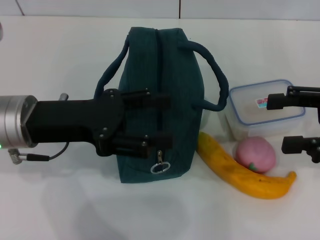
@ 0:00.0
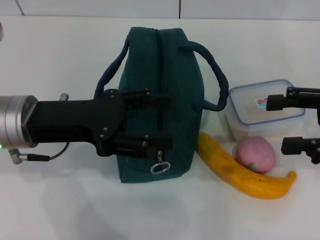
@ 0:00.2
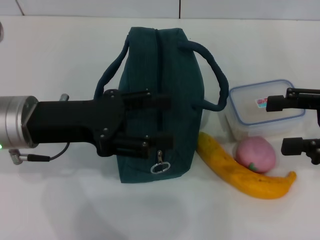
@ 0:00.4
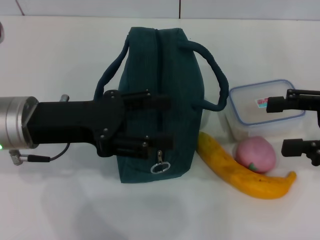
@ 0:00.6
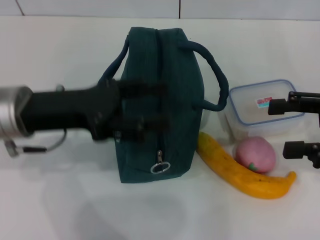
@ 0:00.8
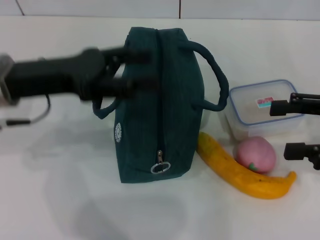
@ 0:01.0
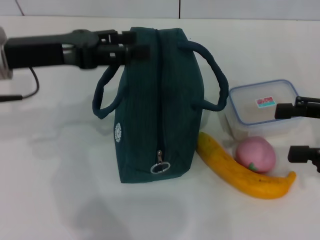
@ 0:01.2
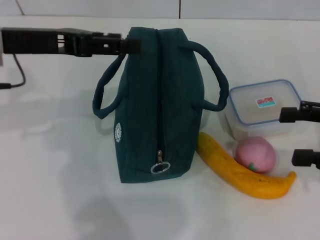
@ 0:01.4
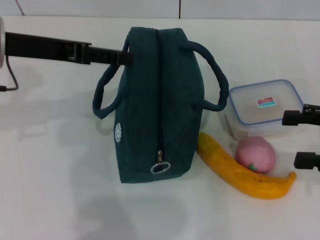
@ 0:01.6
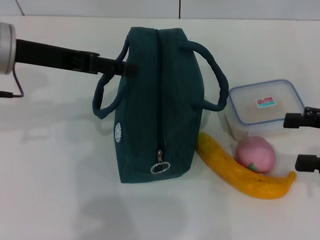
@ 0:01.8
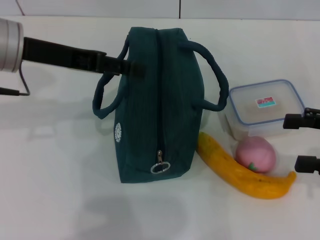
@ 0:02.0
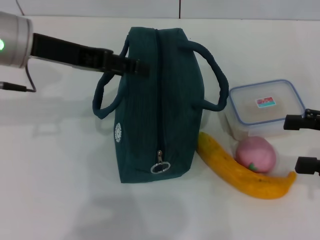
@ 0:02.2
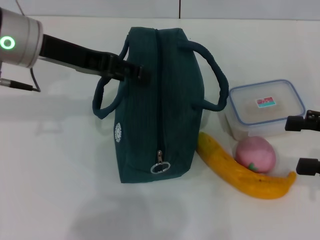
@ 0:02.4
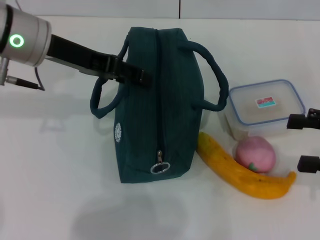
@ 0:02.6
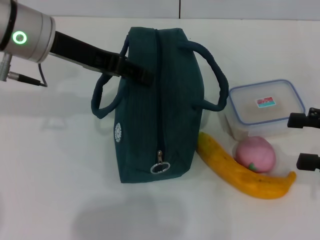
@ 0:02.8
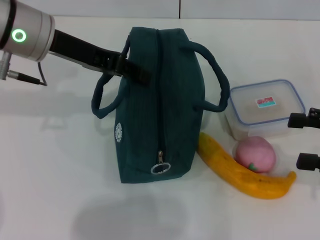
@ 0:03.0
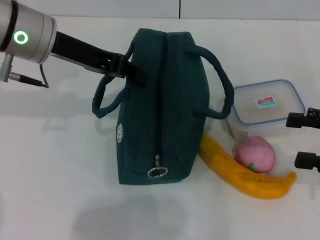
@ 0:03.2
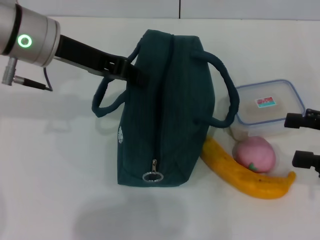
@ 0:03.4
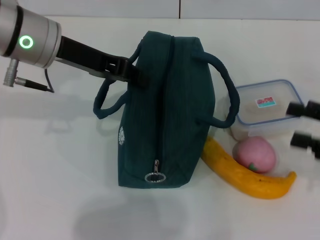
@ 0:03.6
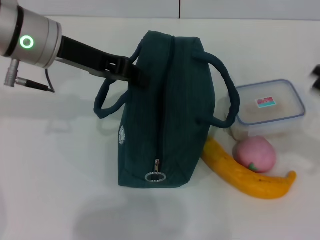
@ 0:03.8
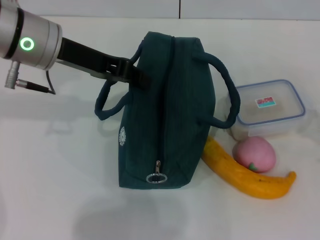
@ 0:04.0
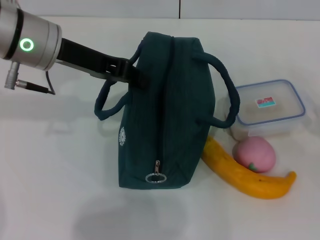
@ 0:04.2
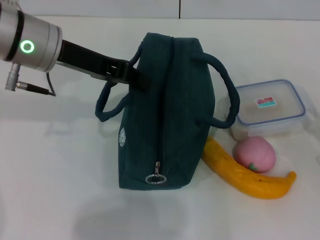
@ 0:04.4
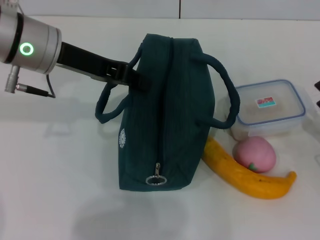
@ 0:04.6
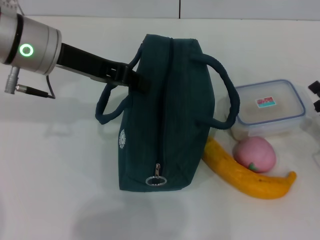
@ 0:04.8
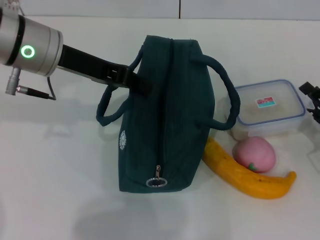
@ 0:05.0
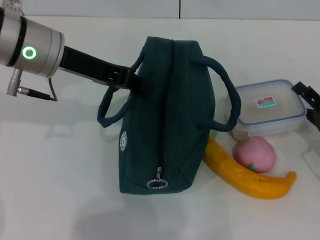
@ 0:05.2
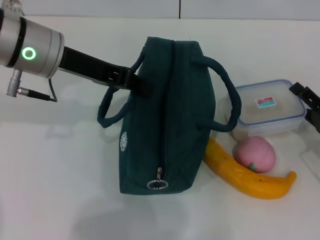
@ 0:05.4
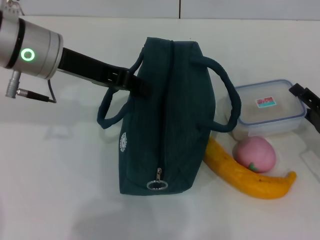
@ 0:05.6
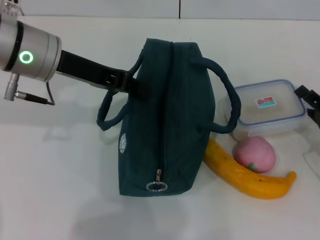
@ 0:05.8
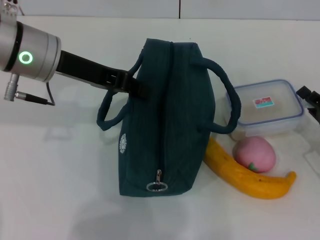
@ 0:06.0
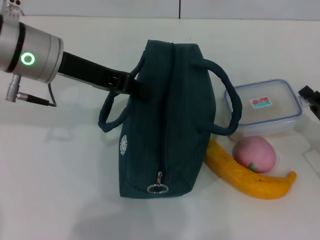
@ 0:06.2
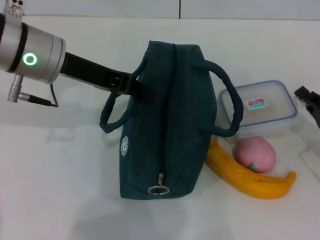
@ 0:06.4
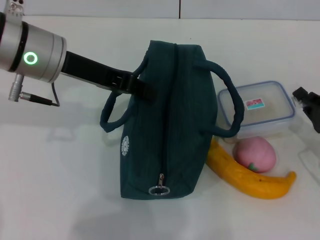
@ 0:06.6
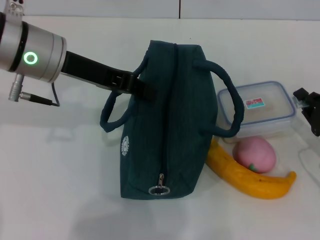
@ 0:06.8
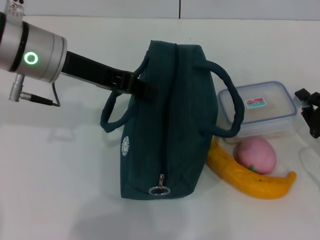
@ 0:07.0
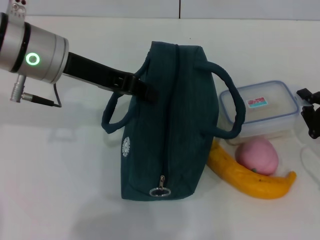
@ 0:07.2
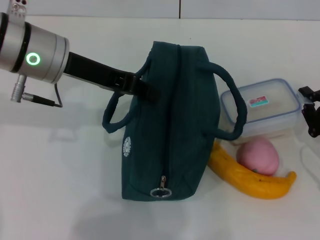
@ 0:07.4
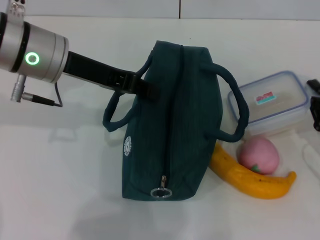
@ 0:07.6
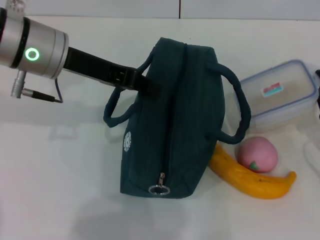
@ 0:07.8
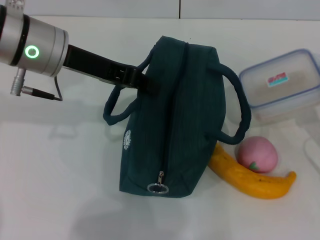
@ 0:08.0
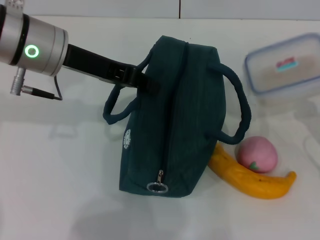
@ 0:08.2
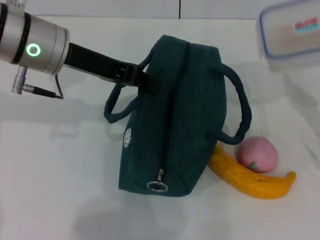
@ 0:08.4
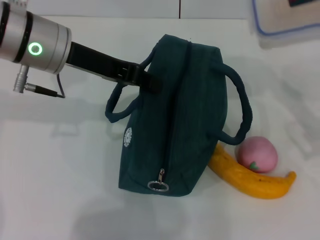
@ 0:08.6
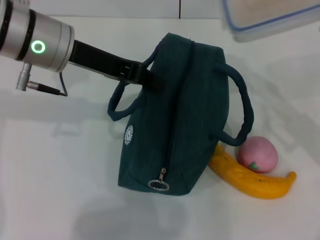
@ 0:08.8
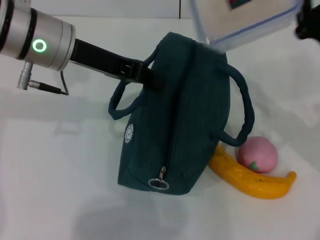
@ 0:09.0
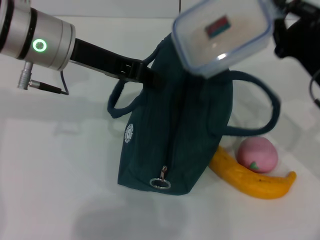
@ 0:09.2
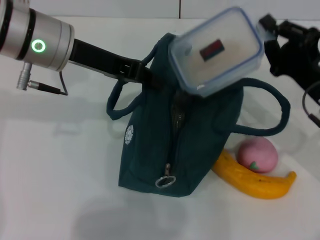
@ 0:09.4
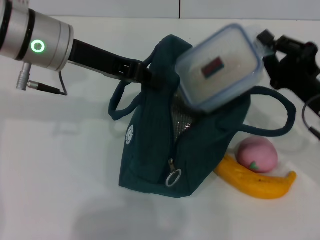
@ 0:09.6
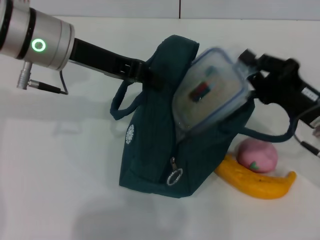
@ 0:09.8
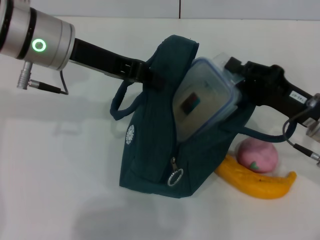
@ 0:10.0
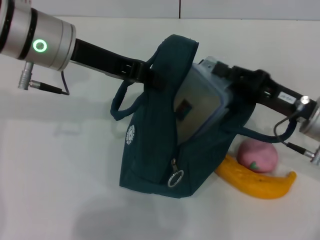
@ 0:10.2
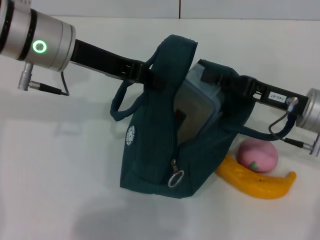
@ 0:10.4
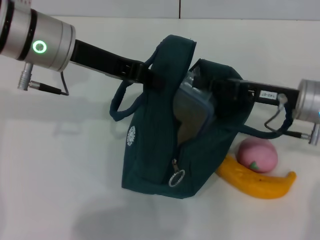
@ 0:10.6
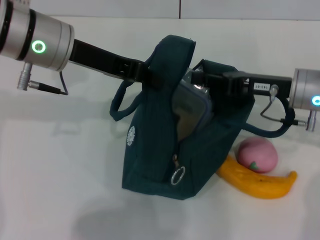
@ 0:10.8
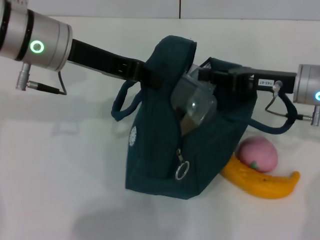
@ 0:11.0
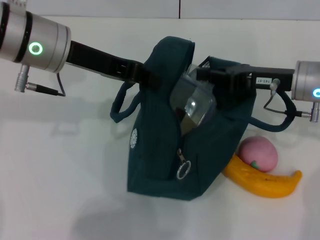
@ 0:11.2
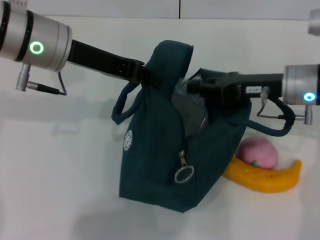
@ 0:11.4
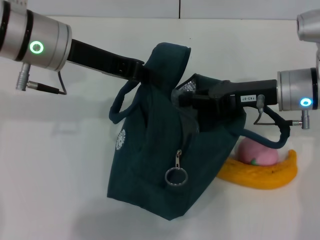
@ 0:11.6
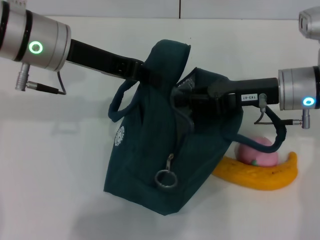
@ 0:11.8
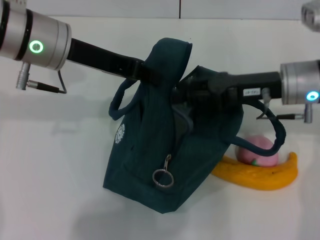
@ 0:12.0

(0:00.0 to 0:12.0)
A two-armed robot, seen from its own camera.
Step, 0:00.0 - 0:03.8: Hold the lunch bag with your left hand.
Step, 0:04.0 - 0:07.0: Pick up the lunch box with your right hand.
0:00.0 - 0:01.6: The left gripper heads upward and forward, covering some 10 cm.
0:01.6 - 0:03.0: The left gripper shifts by some 5 cm.
0:03.0 - 0:04.4: The left gripper closes. Meanwhile the right gripper heads downward, covering some 10 cm.
0:04.4 - 0:06.0: The grippers move only a little.
0:06.0 - 0:07.6: The right gripper closes up.
0:07.6 - 0:09.0: The right gripper goes roughly 10 cm upward, to the left and forward.
0:10.4 - 0:12.0: The right gripper changes place by roughly 5 cm.

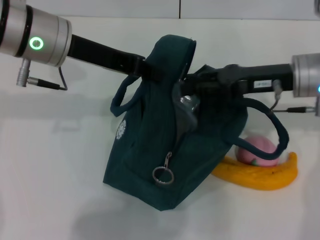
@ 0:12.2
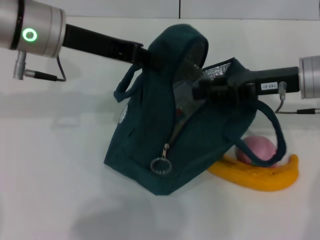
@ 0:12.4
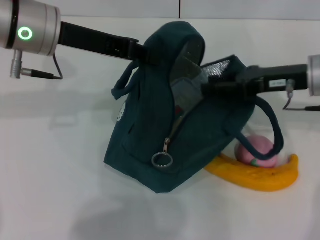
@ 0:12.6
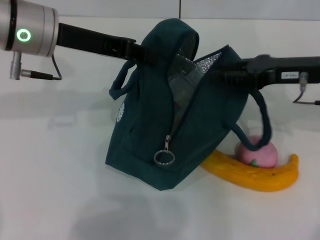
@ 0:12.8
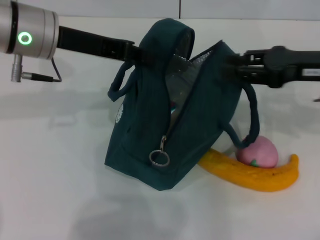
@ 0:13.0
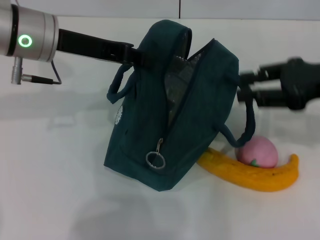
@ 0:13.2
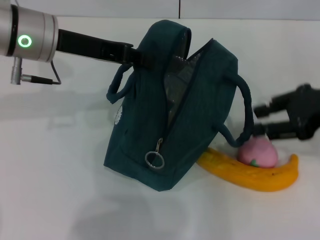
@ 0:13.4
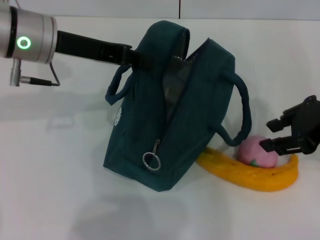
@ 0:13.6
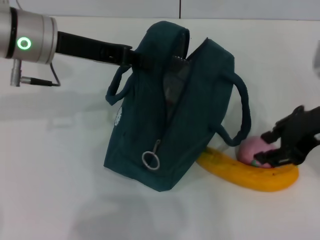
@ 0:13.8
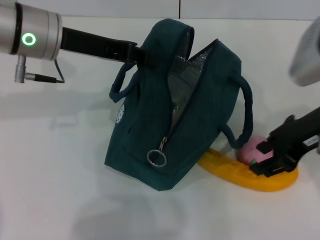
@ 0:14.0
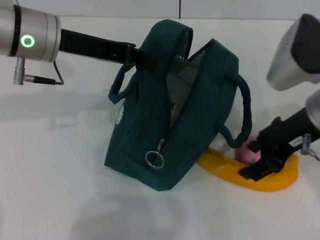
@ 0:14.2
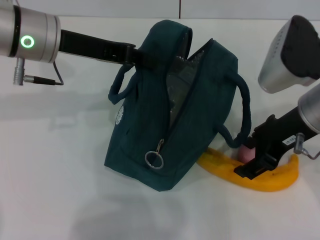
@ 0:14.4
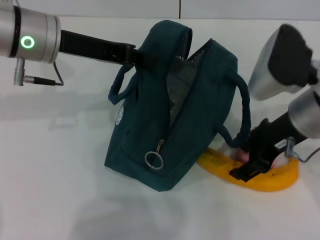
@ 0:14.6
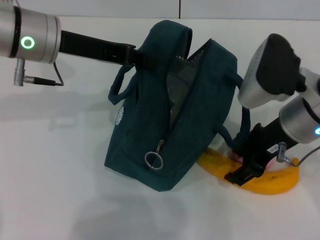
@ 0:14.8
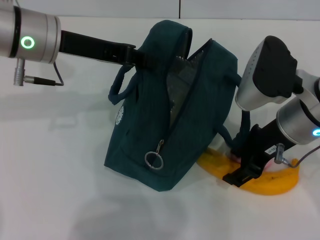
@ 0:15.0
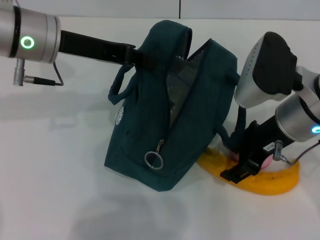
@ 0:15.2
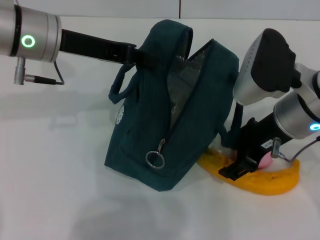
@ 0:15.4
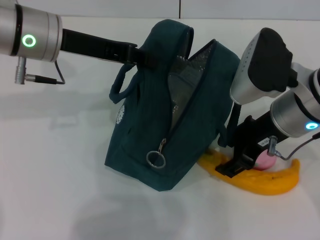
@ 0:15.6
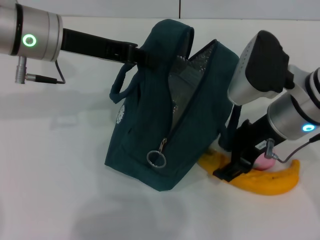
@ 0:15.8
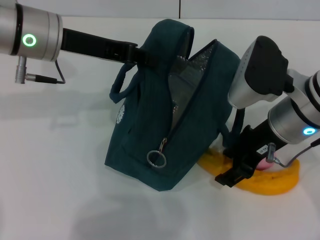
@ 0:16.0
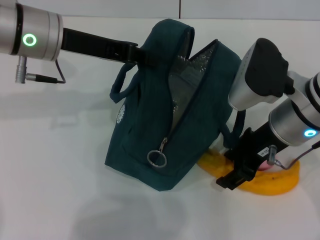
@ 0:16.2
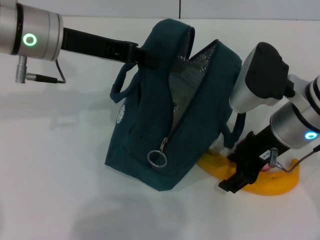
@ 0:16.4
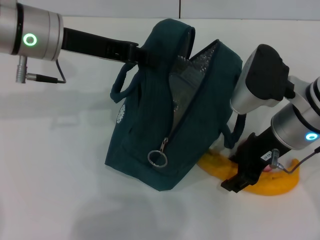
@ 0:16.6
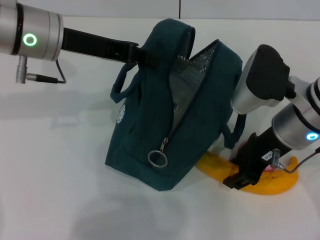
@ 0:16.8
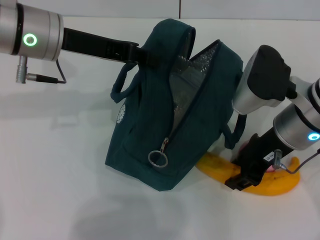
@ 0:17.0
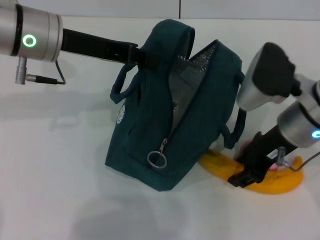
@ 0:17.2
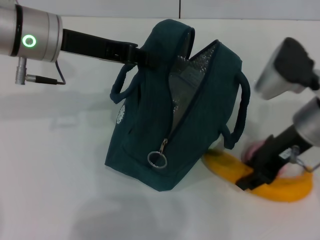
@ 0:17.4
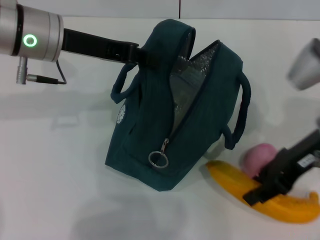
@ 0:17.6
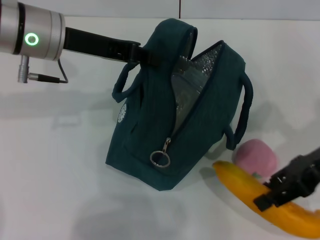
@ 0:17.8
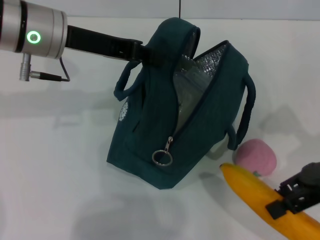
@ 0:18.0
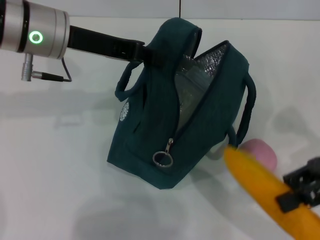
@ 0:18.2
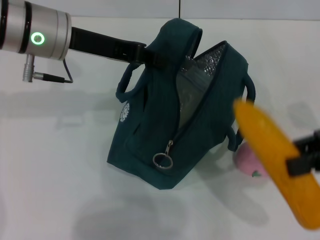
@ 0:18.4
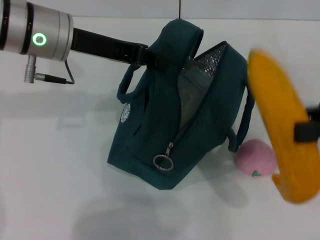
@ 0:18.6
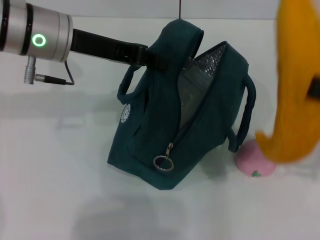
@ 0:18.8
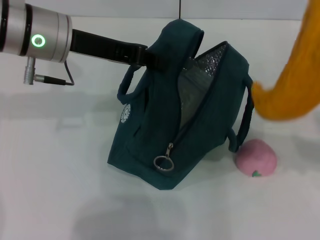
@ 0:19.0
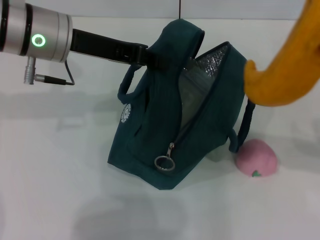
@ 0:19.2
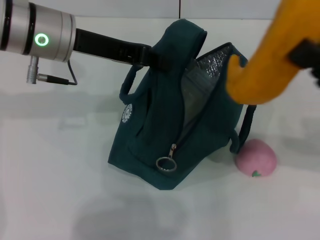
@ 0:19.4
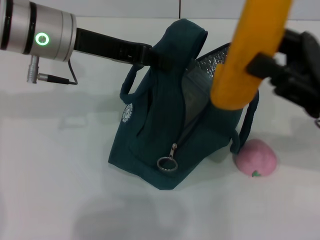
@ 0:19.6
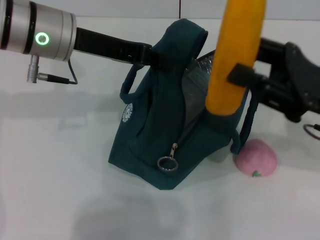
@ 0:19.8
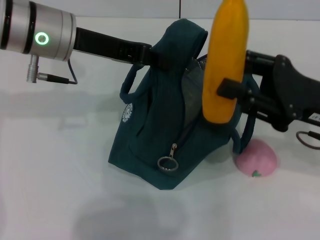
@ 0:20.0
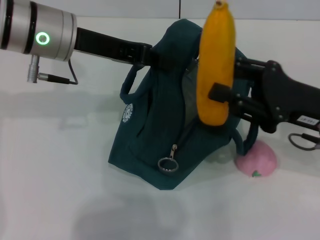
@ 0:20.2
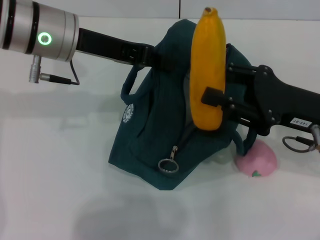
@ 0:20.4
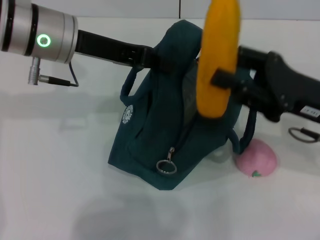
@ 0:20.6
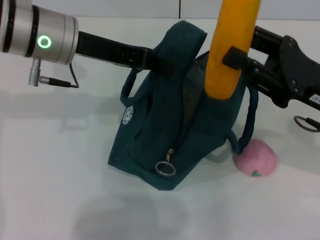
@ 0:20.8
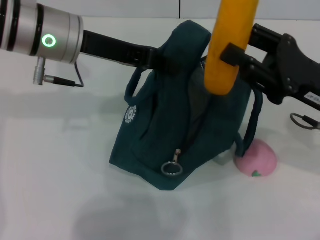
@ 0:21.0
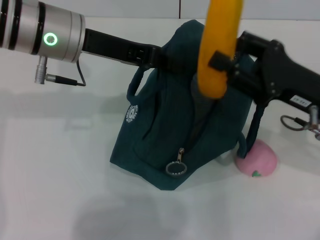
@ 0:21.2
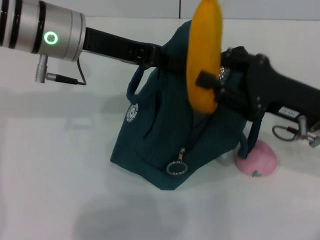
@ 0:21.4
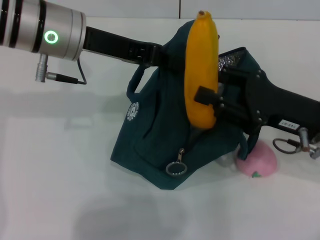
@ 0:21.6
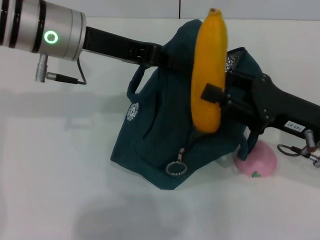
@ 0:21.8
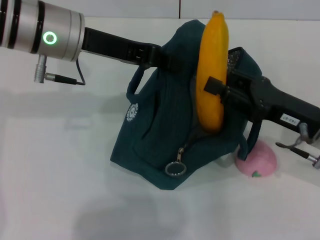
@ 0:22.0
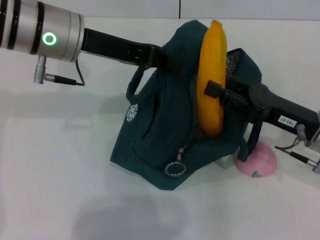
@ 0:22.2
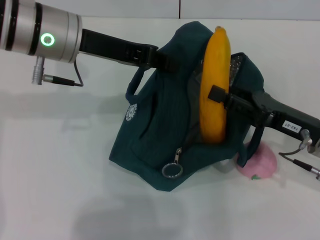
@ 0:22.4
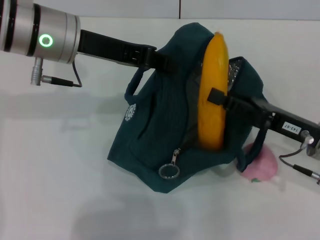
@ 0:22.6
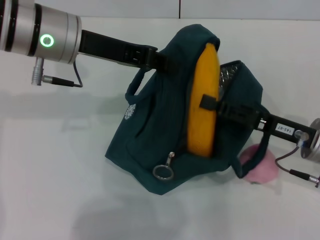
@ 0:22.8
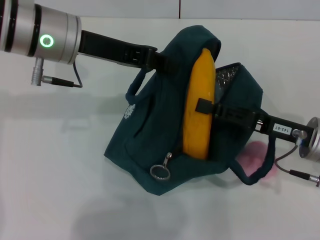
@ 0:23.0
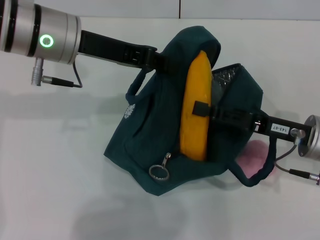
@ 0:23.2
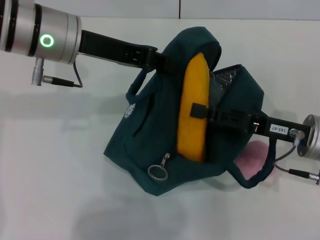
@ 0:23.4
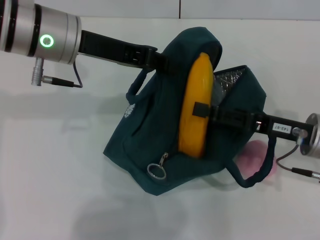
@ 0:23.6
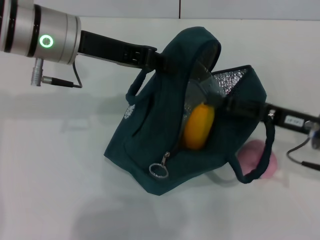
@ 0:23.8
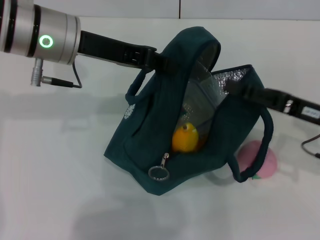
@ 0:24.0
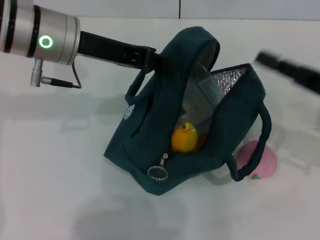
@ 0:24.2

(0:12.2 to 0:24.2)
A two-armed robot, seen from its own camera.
Step, 0:12.8 - 0:16.6: Take the banana with your right hand.
Step, 0:16.8 - 0:23.8: Put the banana into the lunch bag with your right hand.
0:12.2 - 0:13.8: The right gripper heads backward and upward, covering roughly 10 cm.
0:13.8 - 0:15.2: The right gripper goes some 5 cm to the left.
0:15.2 - 0:16.6: The grippers move only a little.
0:16.6 - 0:18.2: The right gripper heads to the right, covering about 15 cm.
0:18.2 - 0:19.8: The right gripper shifts some 5 cm to the left.
0:19.8 - 0:21.2: The grippers make only small movements.
0:22.6 - 0:24.2: The right gripper goes roughly 5 cm to the right, and opens.
